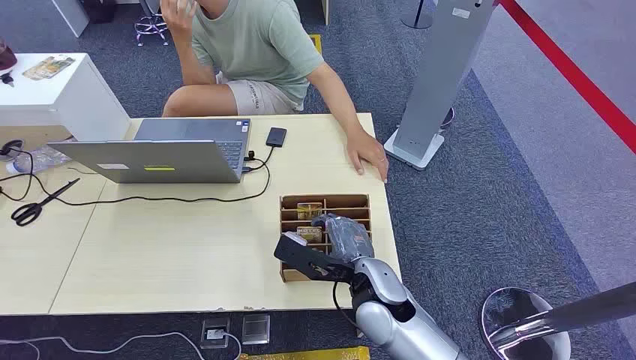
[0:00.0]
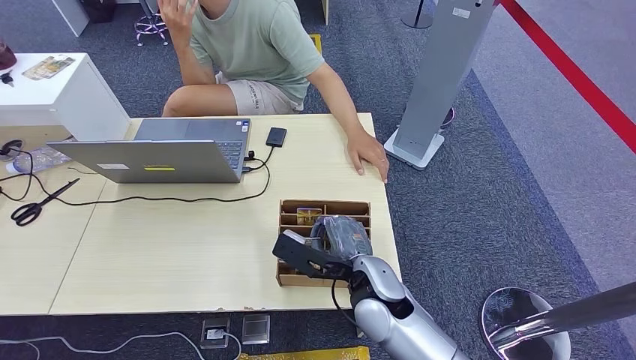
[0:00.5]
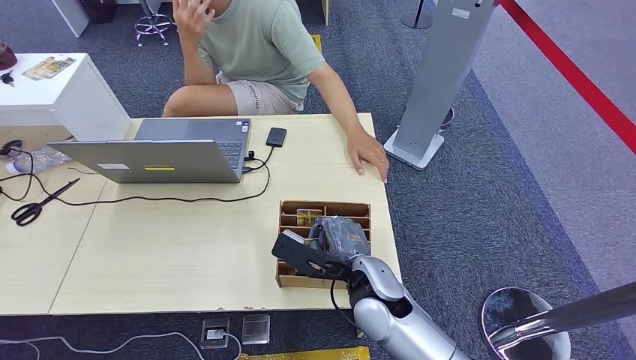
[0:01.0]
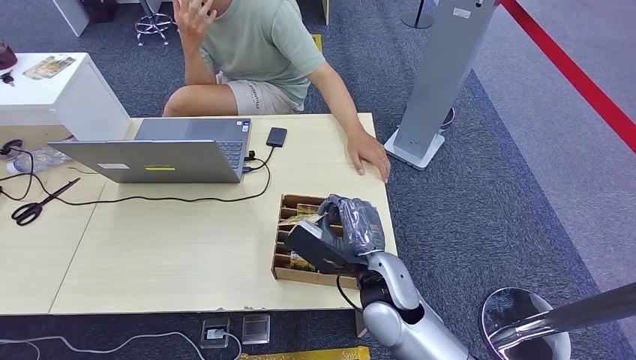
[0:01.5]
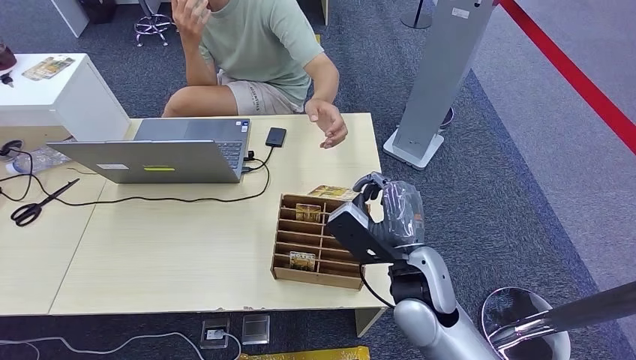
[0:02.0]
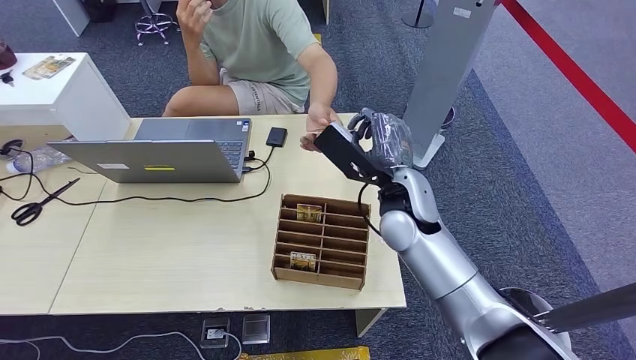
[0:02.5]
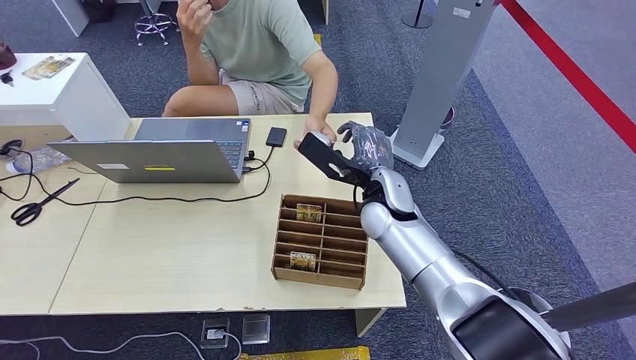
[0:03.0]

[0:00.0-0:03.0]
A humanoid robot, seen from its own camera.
Step, 0:00.0 to 0:01.5: Pick up the room card from the card holder.
Step, 0:02.5 to 0:03.0: Hand the room card to the target.
0:01.5 to 0:03.0: The right hand travels forward by roughly 15 cm.

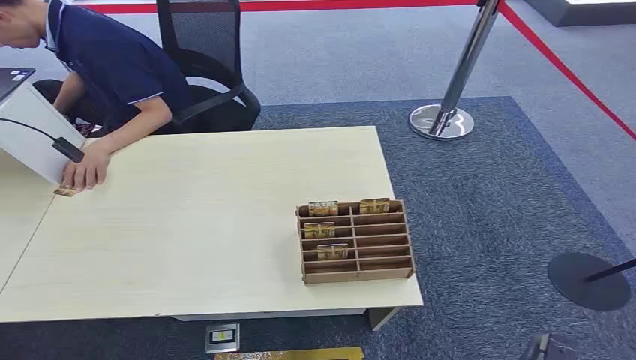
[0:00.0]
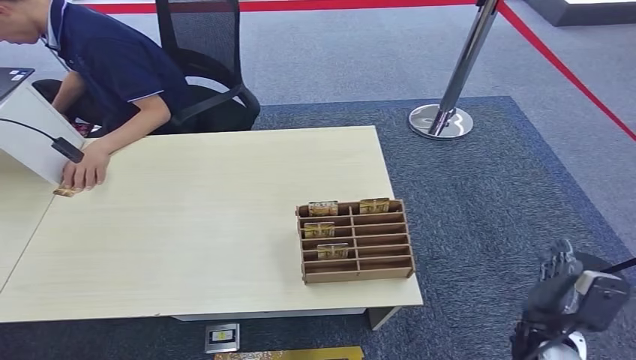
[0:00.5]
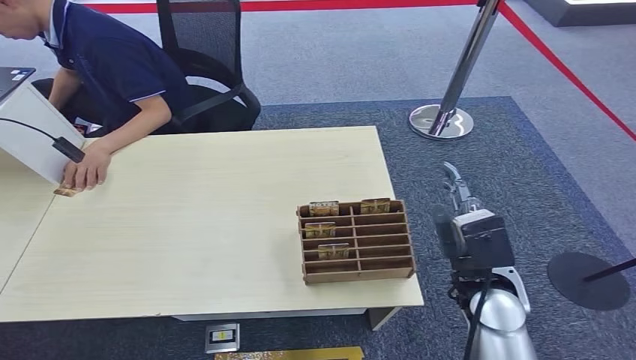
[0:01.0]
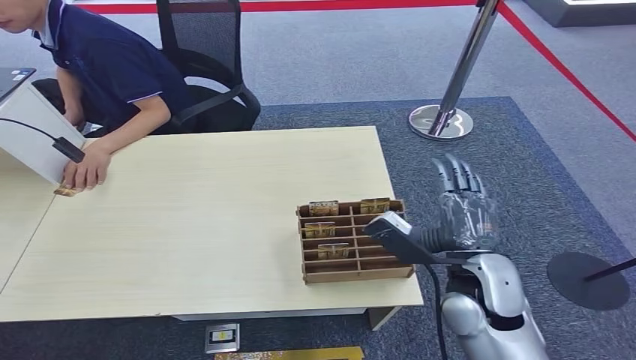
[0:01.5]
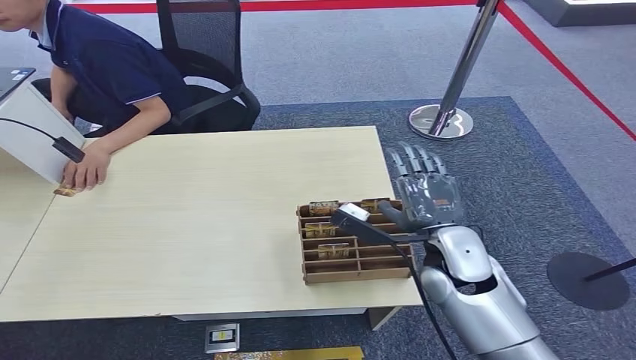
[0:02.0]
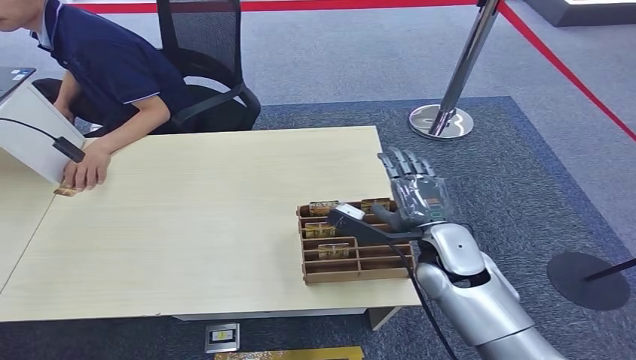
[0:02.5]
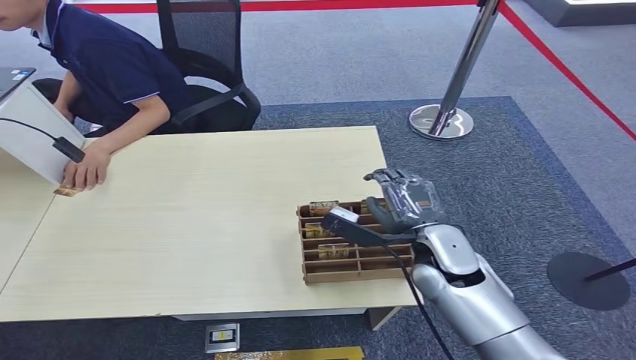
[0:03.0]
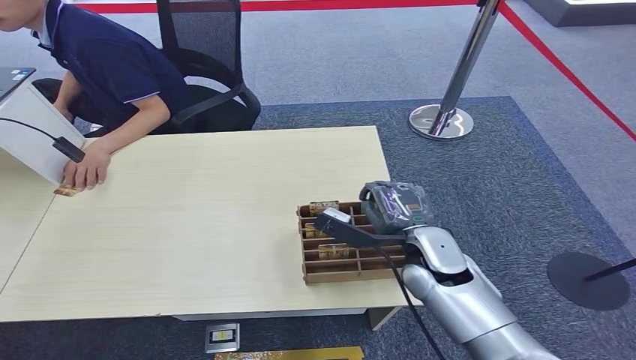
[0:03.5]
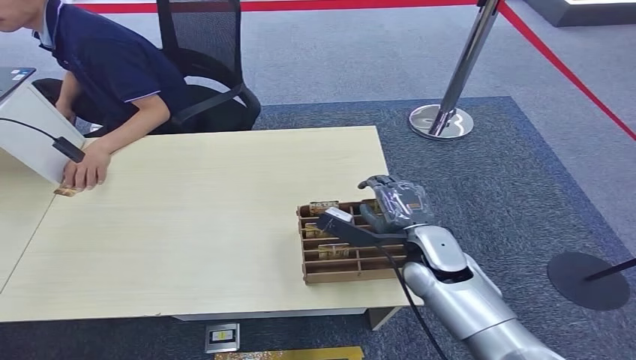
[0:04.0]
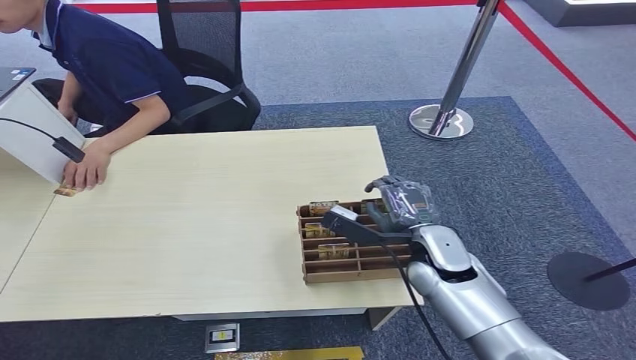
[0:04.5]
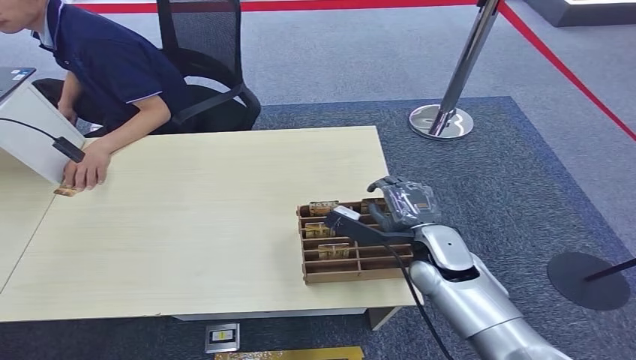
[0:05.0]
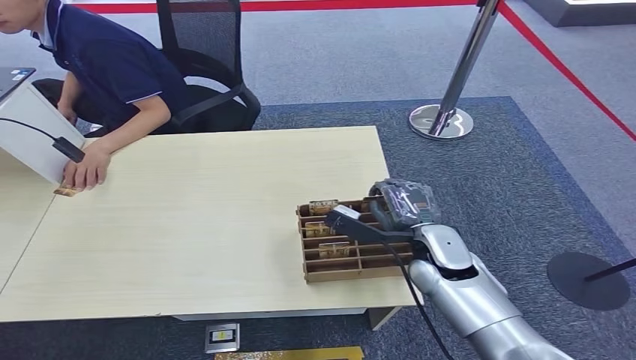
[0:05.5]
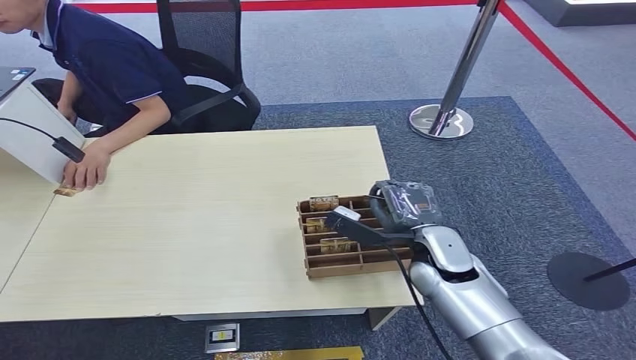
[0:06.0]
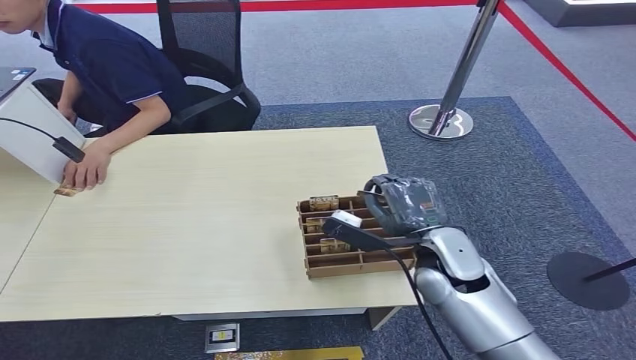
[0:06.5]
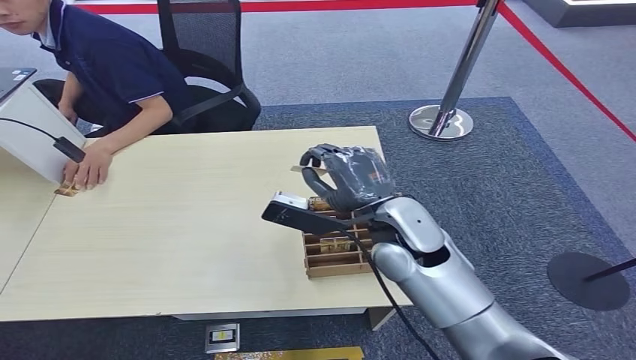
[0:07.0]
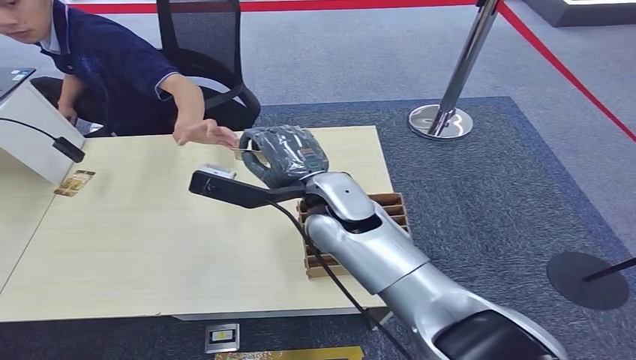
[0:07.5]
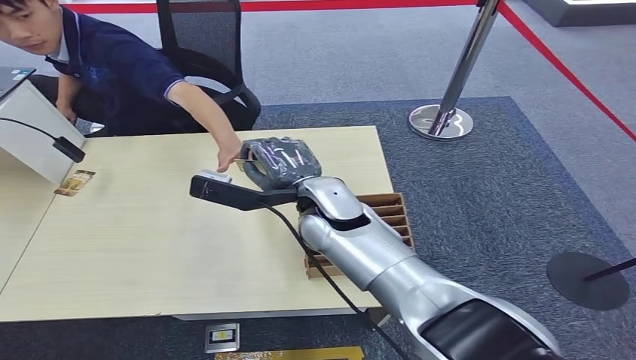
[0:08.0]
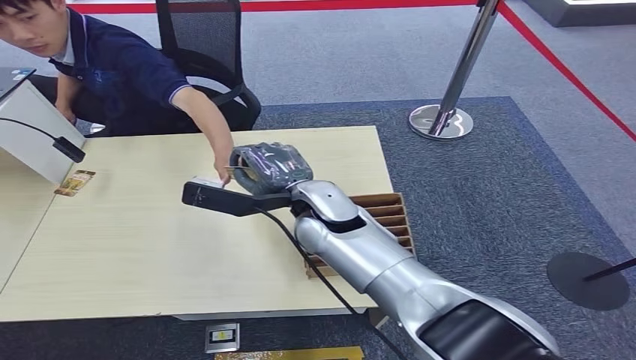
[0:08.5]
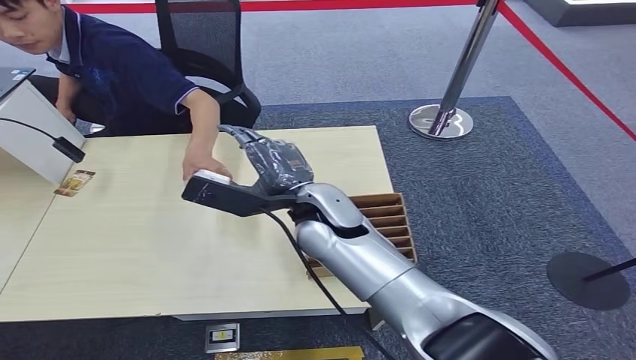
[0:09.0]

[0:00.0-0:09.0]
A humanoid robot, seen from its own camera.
Step, 0:00.0 to 0:07.0: Pick up the room card from the card holder.
Step, 0:07.5 to 0:09.0: Hand the room card to the target.
0:02.0 to 0:04.5: The hands make only small movements.
0:04.5 to 0:07.0: The right hand is displaced upward and to the left by approximately 10 cm.
0:07.0 to 0:09.0: The right hand moves to the left, approximately 10 cm.
